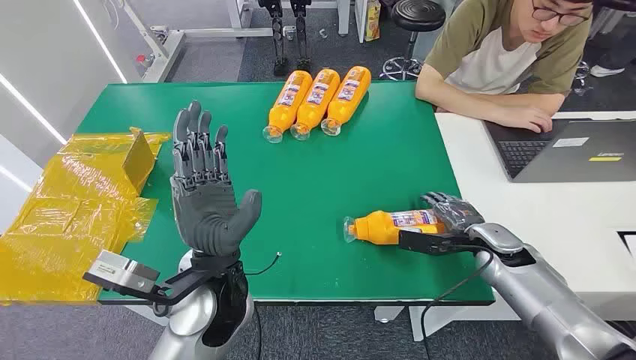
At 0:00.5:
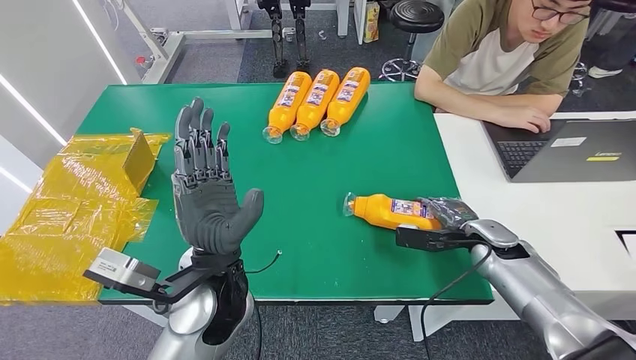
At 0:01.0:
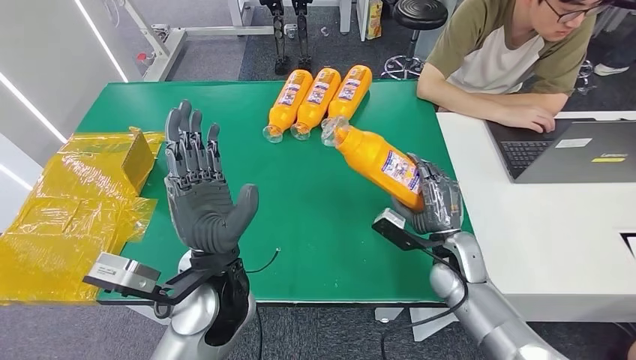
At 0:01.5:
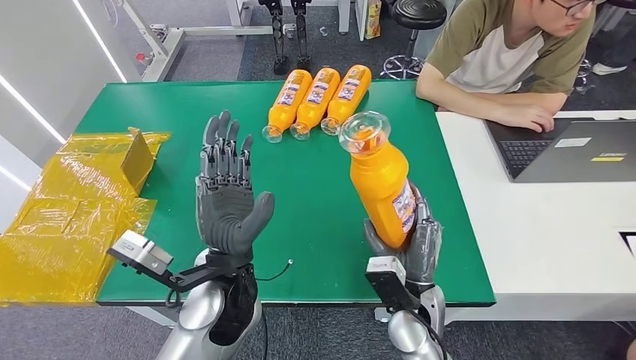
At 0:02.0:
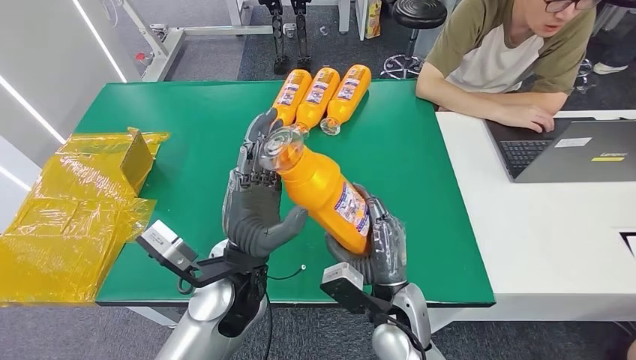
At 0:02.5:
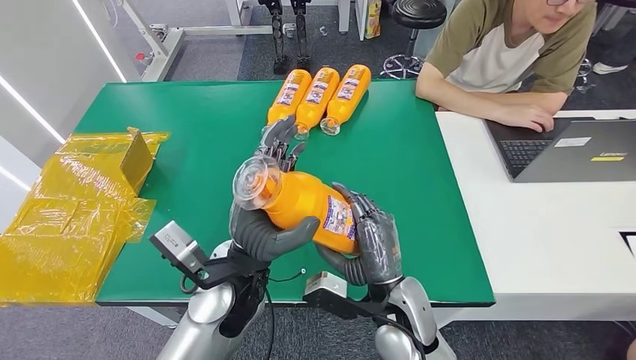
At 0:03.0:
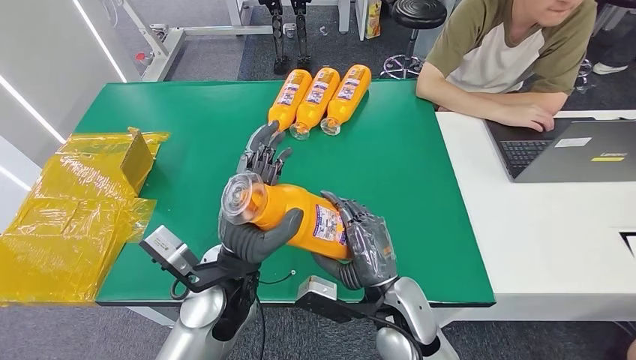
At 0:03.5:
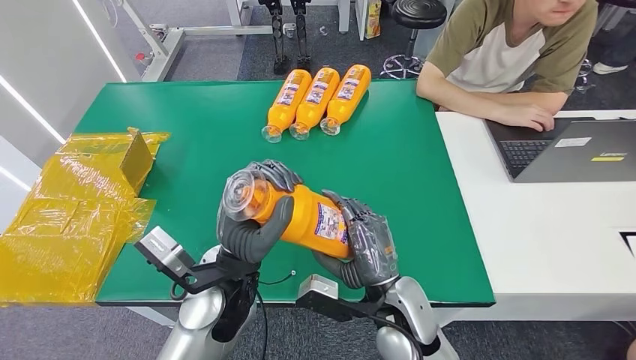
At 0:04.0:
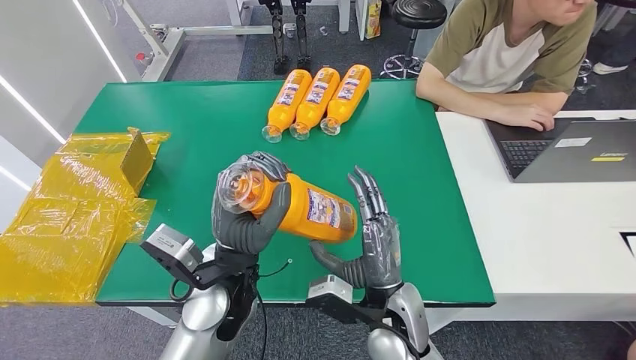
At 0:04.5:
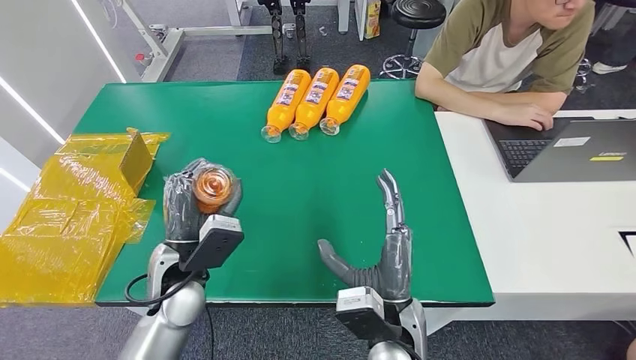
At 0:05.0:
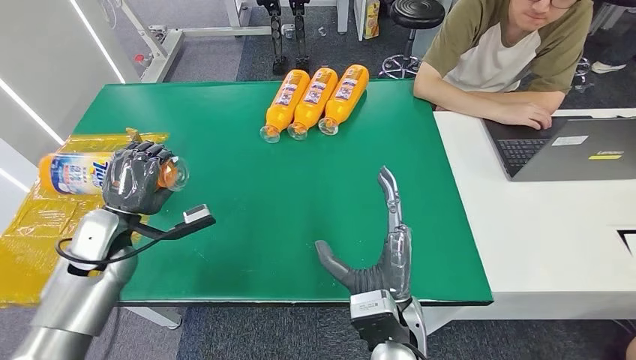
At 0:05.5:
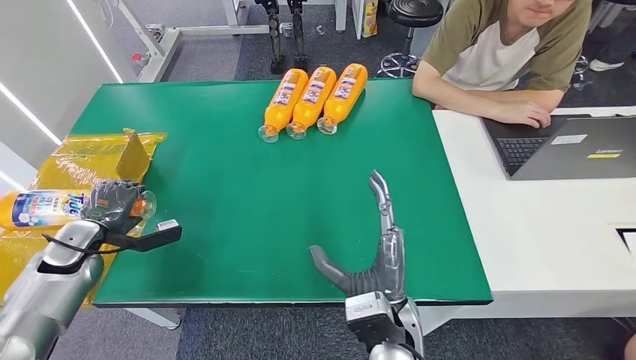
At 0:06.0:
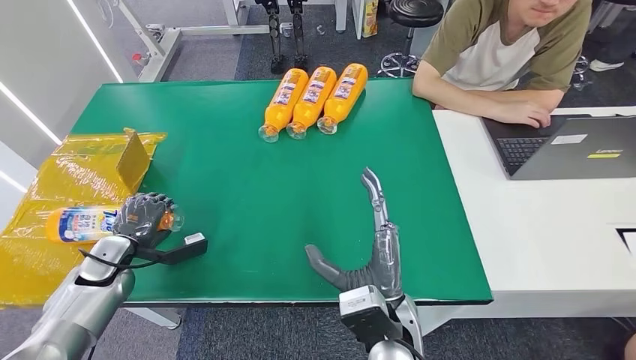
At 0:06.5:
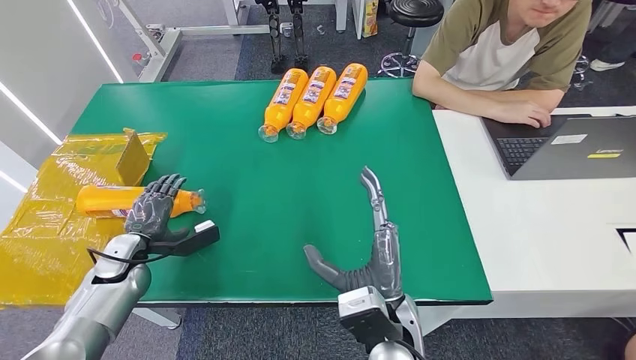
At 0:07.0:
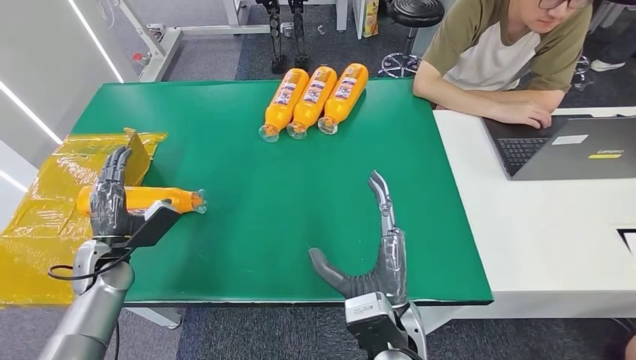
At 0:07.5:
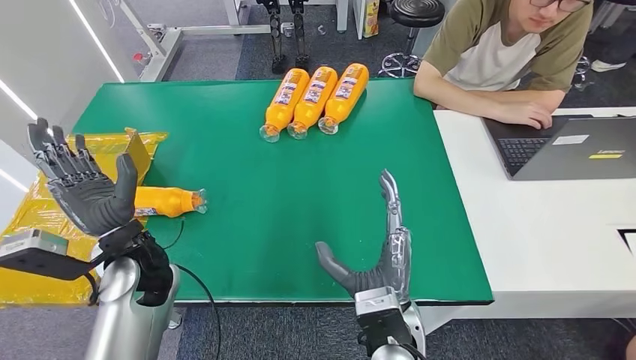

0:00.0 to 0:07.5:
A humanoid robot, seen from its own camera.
Step, 0:00.0 to 0:02.5: Pick up the bottle from the table.
Step, 0:03.0 to 0:07.5: Turn the bottle to the front side.
0:05.5 to 0:07.5: The left hand shifts about 25 cm to the right.
